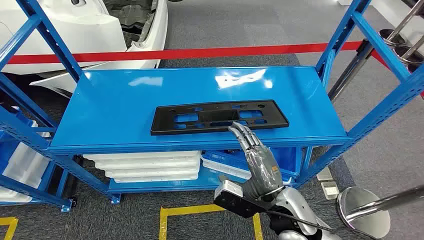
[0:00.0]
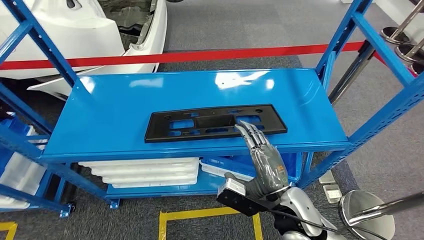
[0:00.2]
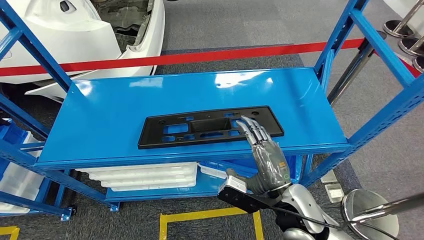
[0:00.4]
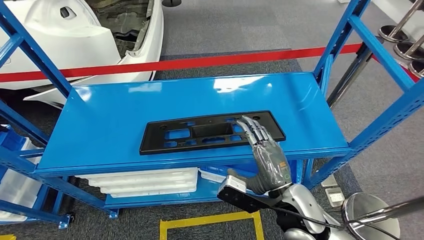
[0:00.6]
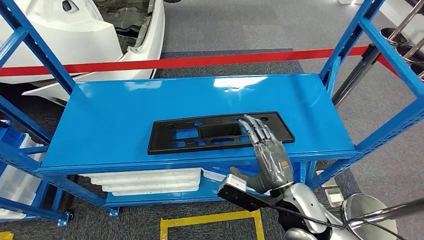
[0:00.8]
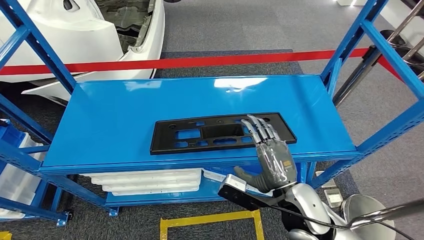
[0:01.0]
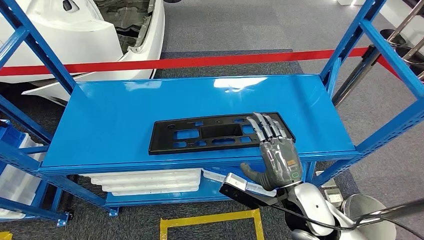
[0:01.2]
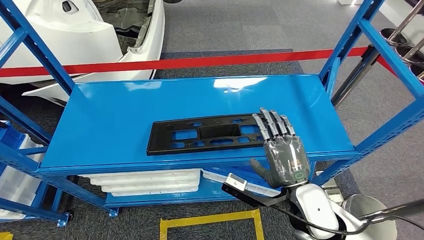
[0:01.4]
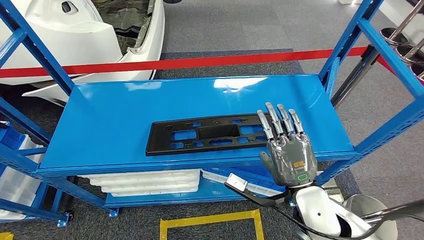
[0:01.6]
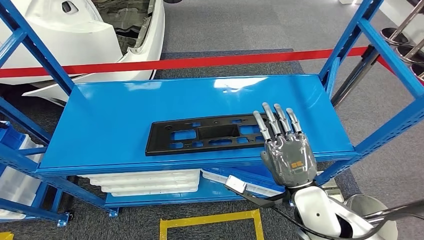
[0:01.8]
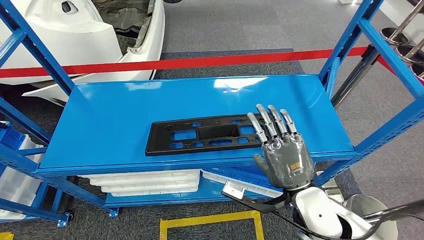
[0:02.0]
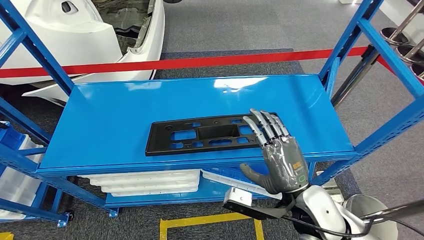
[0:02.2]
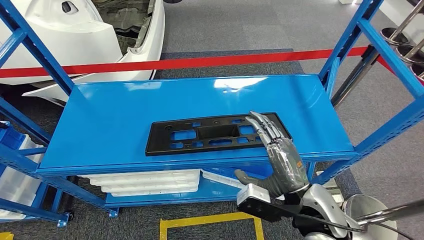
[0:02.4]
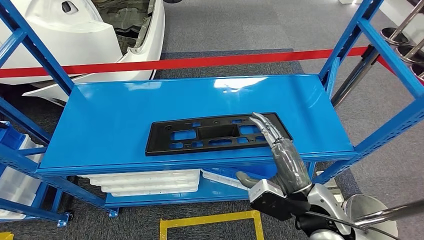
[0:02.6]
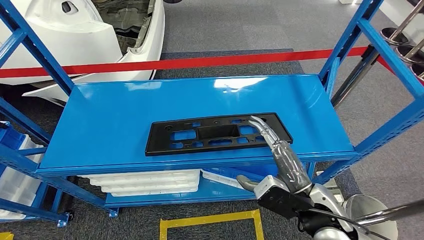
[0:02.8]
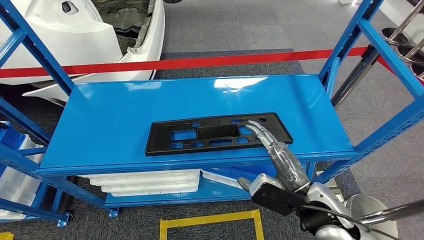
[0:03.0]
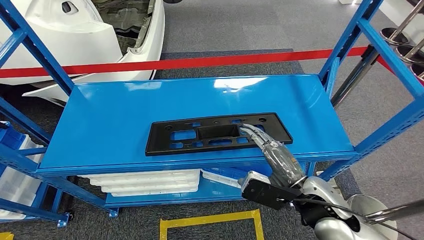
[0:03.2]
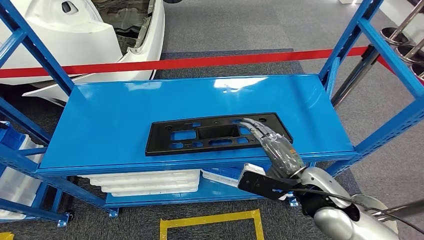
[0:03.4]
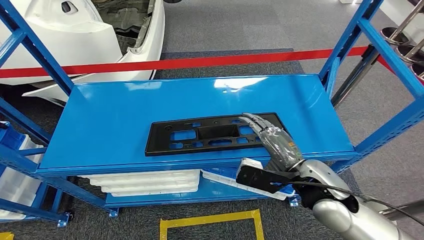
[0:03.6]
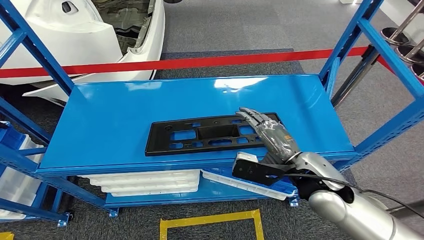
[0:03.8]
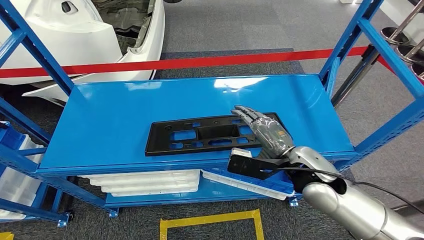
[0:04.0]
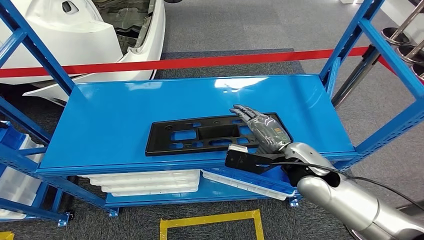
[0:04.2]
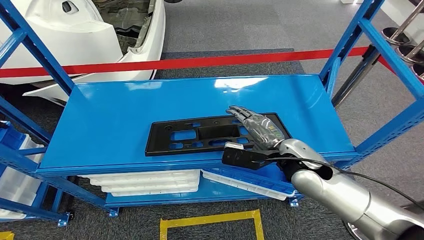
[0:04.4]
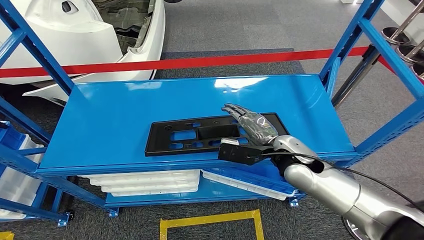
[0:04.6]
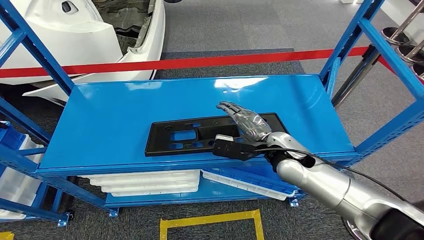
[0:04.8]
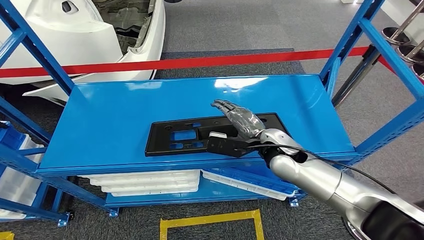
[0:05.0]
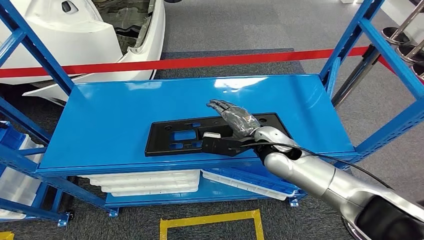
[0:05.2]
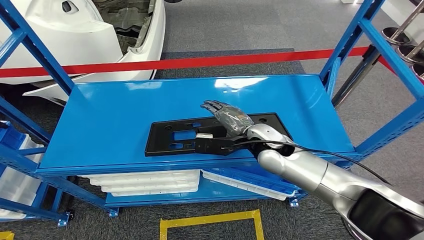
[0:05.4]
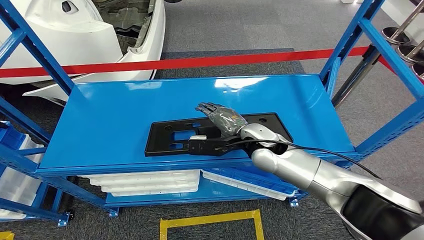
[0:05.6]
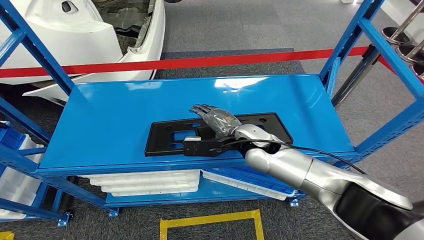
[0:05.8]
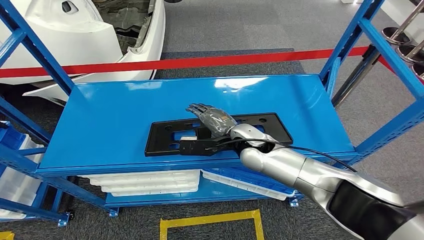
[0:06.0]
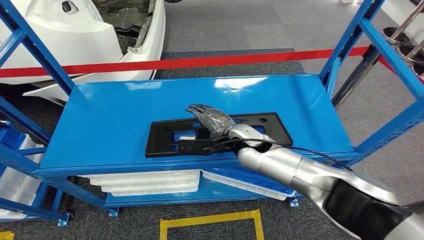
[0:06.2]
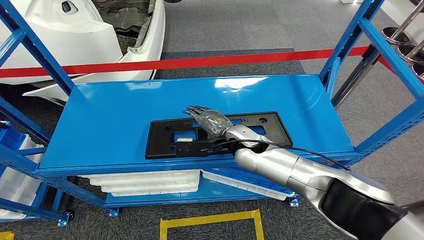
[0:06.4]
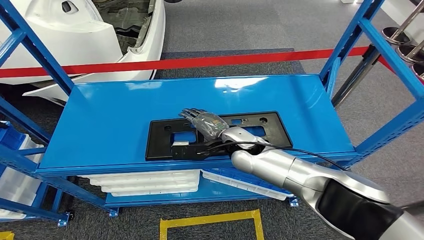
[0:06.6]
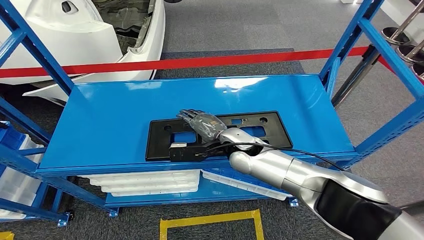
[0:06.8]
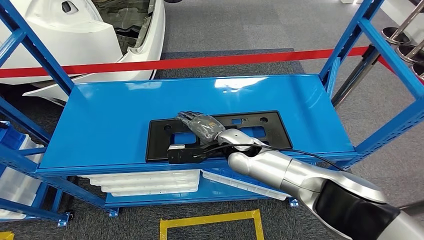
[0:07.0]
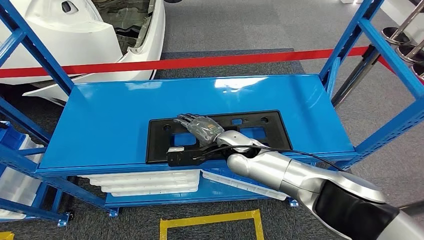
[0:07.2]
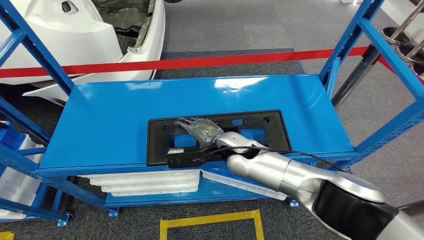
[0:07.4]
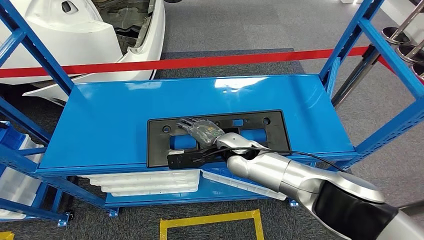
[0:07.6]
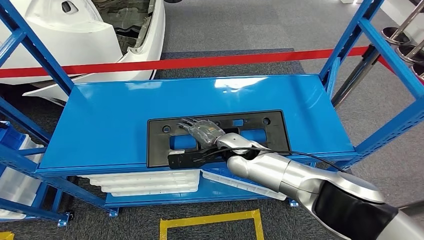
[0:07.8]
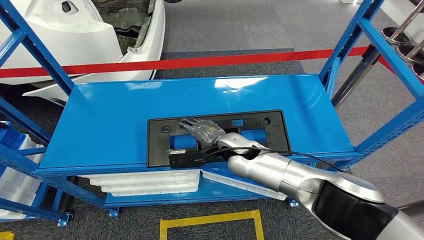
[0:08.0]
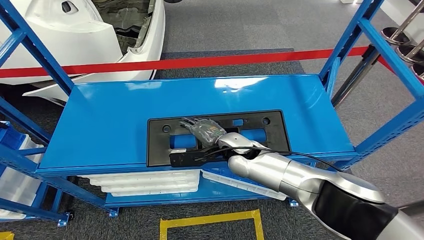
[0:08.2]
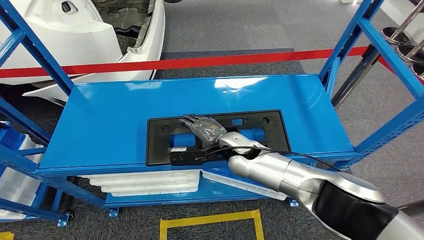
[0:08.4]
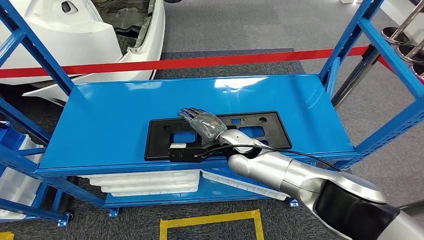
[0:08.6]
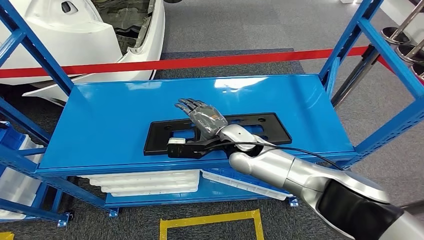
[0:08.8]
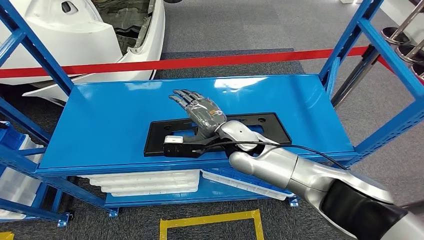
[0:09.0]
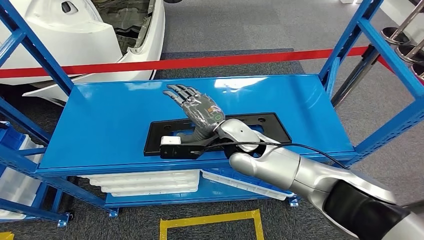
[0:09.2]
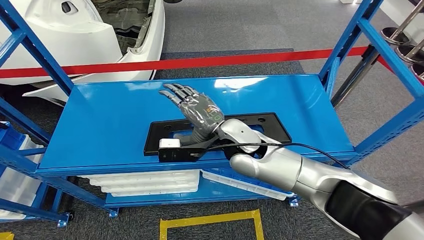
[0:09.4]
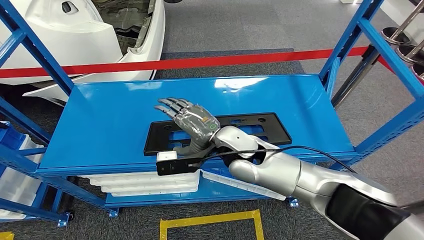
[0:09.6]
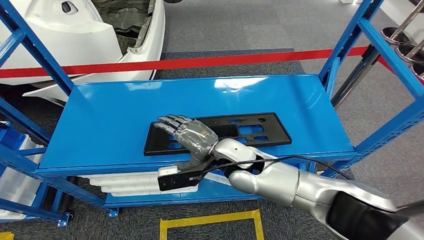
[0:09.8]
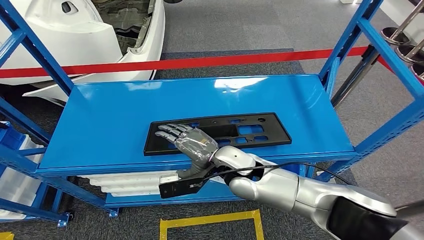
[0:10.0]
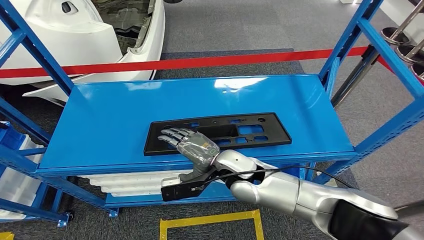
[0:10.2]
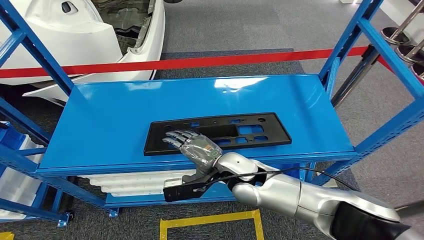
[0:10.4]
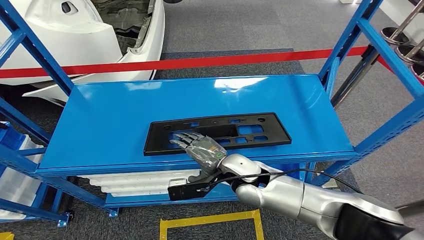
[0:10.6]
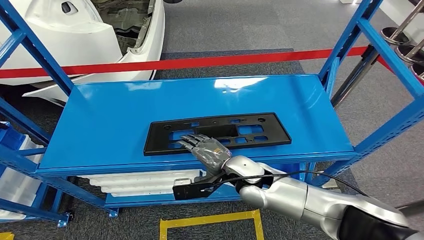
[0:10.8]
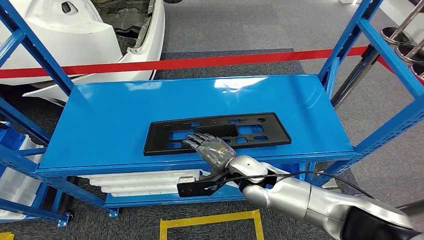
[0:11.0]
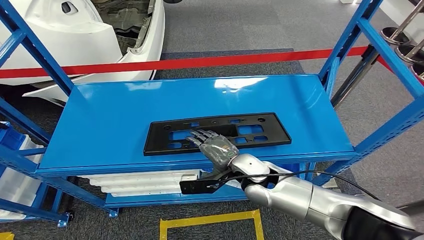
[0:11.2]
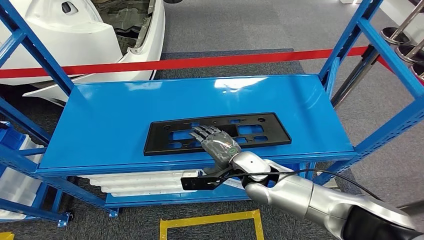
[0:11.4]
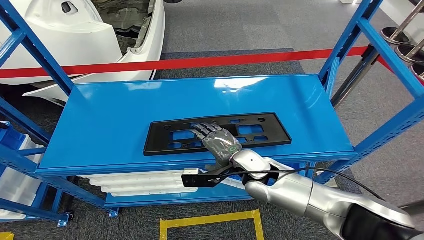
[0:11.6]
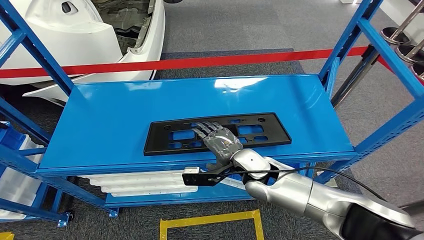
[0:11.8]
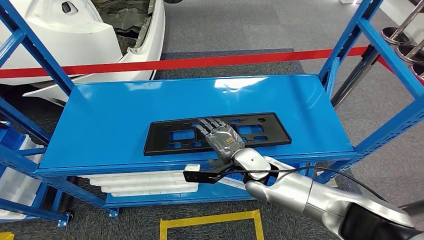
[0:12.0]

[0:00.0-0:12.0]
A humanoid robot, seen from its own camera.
0:03.0 to 0:04.4: The right hand is displaced forward by approximately 10 cm.
0:04.4 to 0:06.0: The right hand is displaced to the left and forward by roughly 15 cm.
0:06.0 to 0:07.6: The hands move only a little.
0:07.6 to 0:09.0: The right hand goes approximately 5 cm upward.
0:09.0 to 0:10.4: The right hand shifts about 5 cm backward.
0:10.4 to 0:12.0: The right hand ends up approximately 5 cm from where it was.

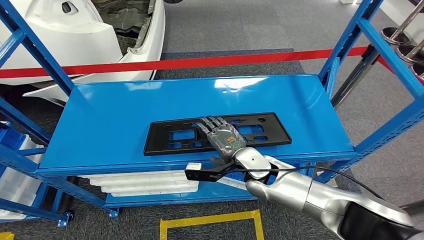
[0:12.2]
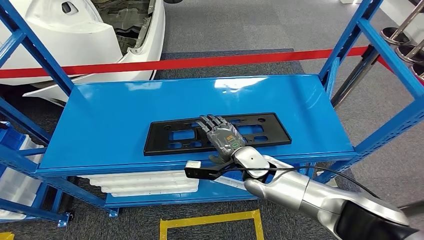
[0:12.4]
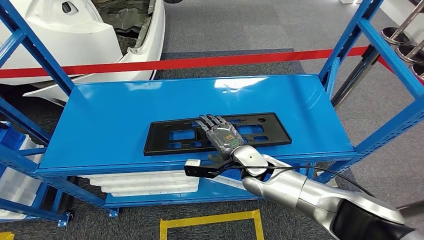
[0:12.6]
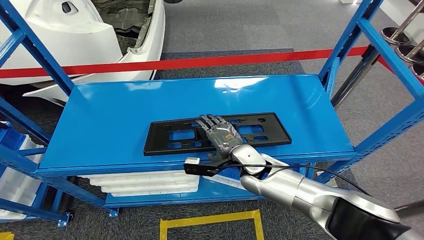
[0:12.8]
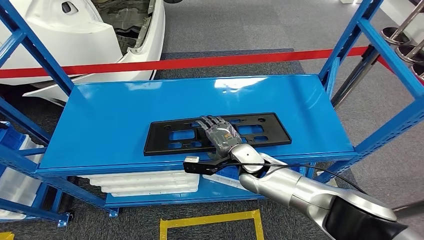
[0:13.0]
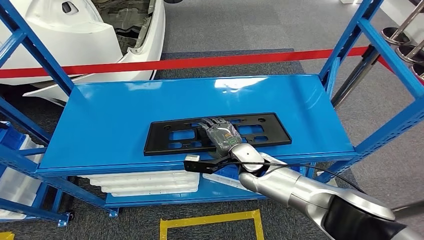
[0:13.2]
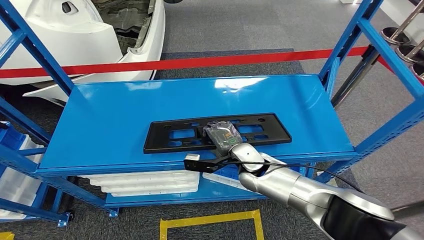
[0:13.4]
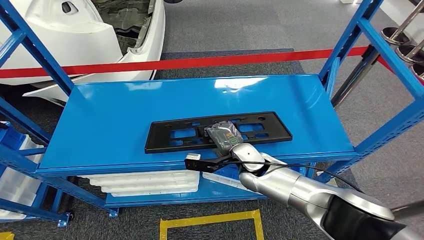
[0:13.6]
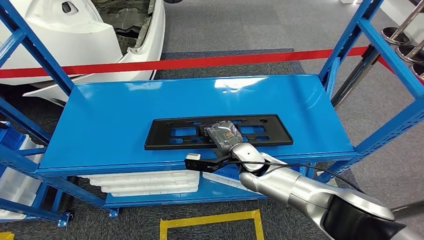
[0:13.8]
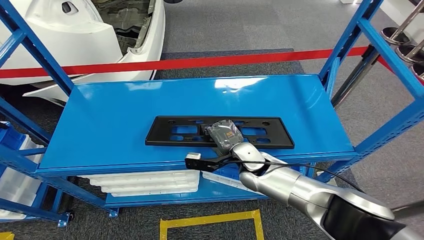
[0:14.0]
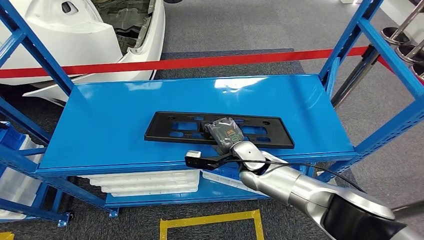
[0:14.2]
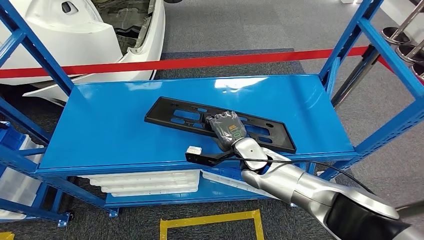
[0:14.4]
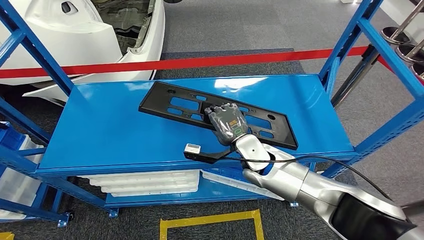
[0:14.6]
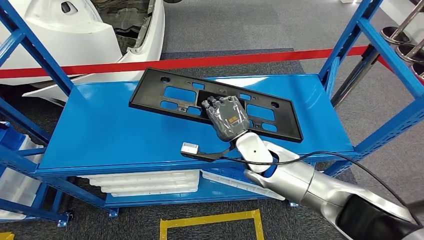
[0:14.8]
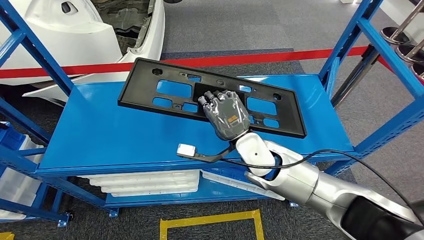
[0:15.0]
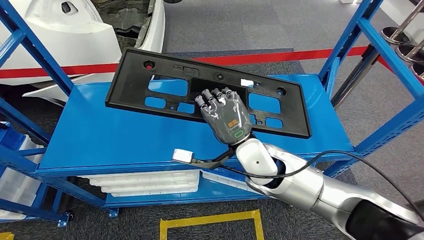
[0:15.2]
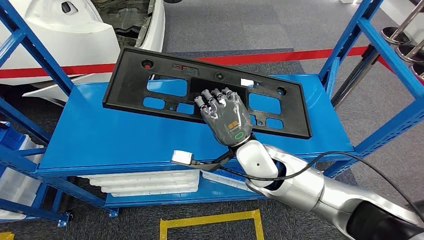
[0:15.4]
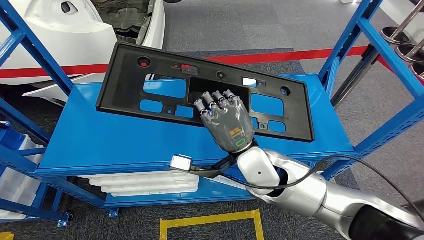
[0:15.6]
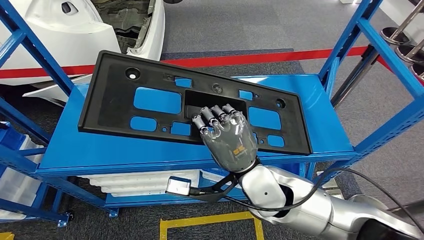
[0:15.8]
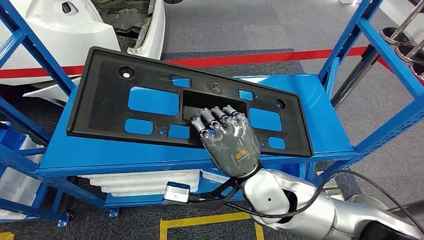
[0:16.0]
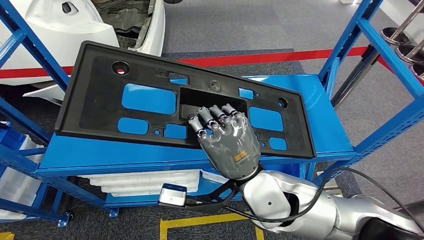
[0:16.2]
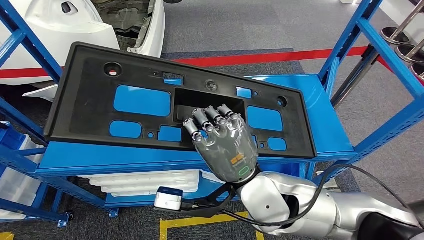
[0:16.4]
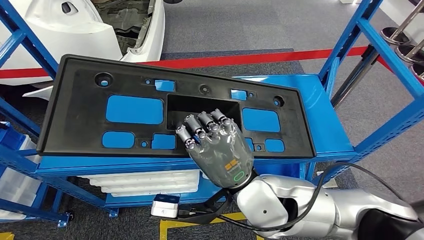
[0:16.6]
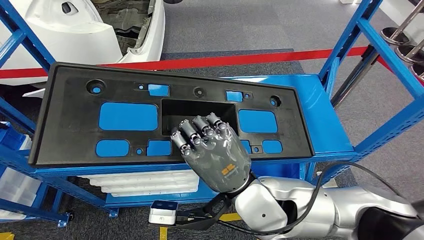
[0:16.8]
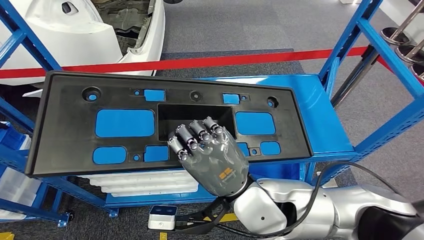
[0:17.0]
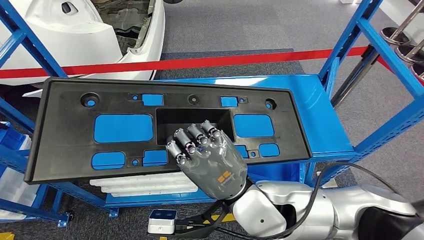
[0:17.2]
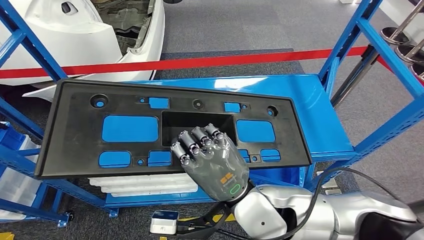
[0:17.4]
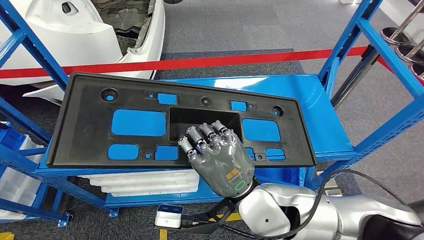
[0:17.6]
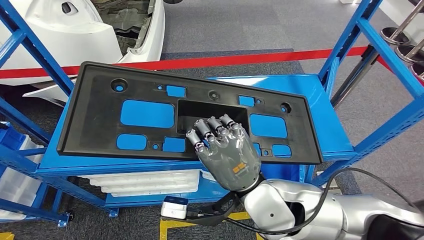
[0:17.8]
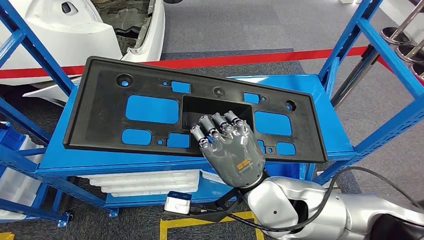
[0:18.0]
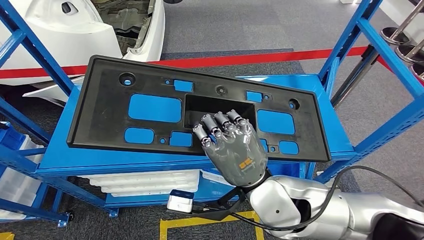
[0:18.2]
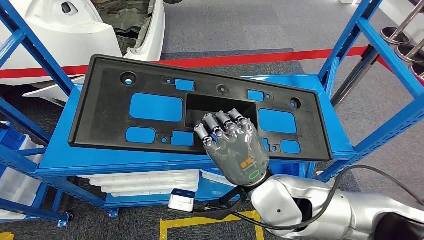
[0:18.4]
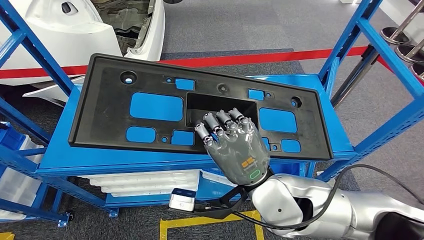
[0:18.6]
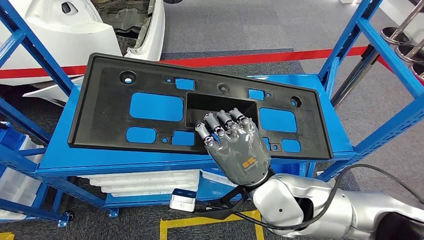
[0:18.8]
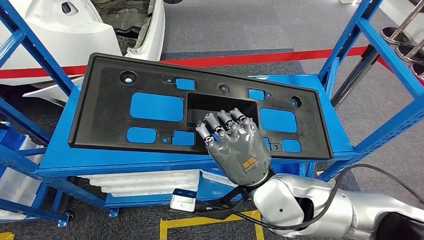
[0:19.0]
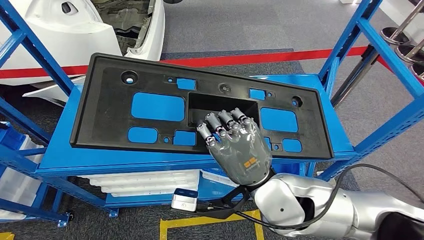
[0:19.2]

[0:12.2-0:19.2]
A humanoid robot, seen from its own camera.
0:12.2 to 0:13.6: The hands make only small movements.
0:13.6 to 0:15.0: The right hand shifts some 10 cm upward.
